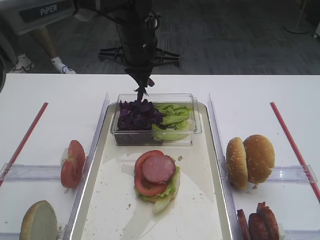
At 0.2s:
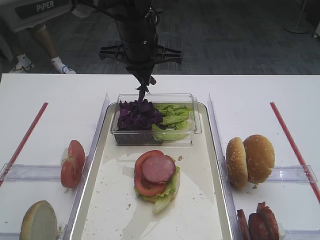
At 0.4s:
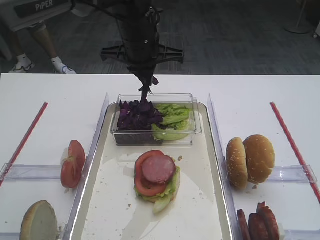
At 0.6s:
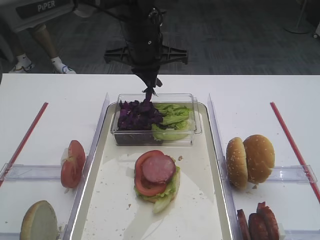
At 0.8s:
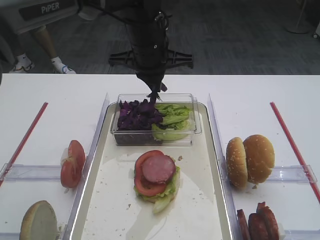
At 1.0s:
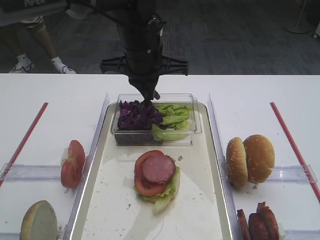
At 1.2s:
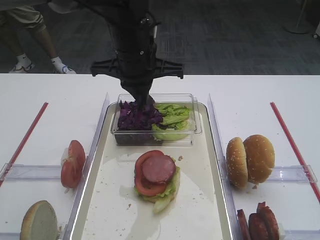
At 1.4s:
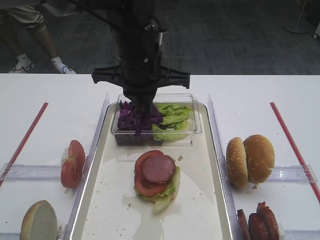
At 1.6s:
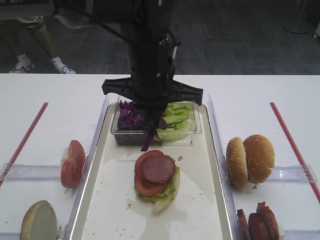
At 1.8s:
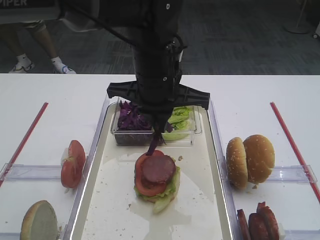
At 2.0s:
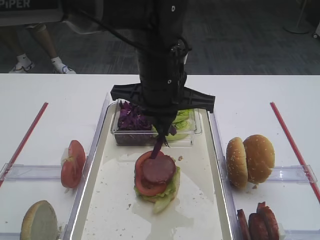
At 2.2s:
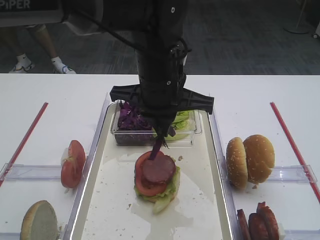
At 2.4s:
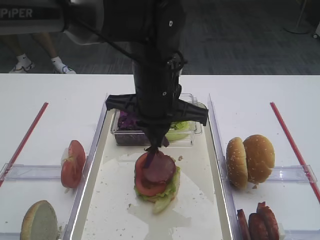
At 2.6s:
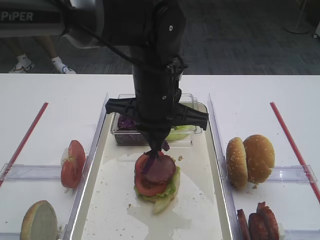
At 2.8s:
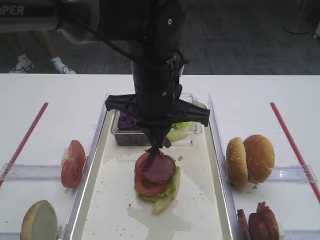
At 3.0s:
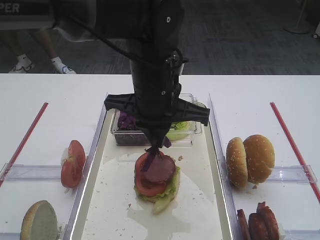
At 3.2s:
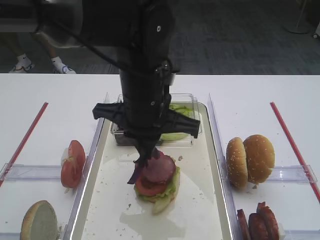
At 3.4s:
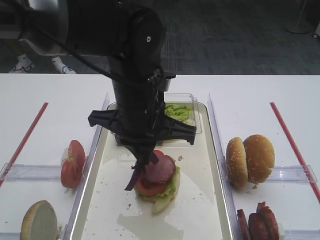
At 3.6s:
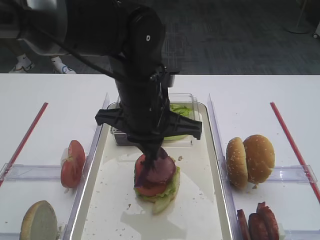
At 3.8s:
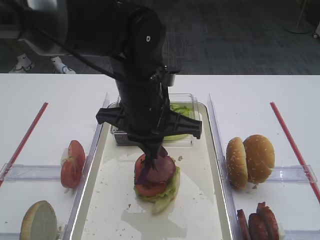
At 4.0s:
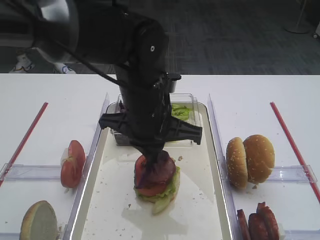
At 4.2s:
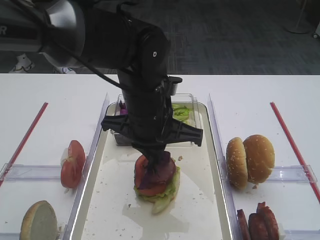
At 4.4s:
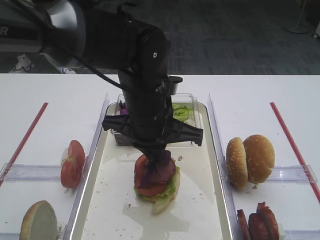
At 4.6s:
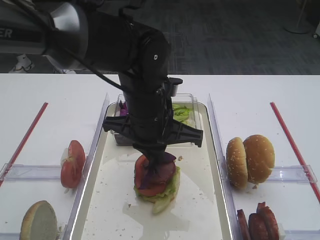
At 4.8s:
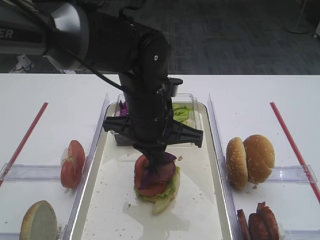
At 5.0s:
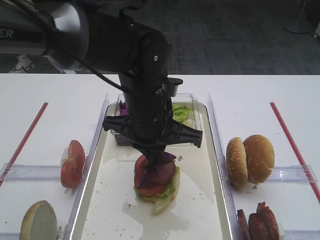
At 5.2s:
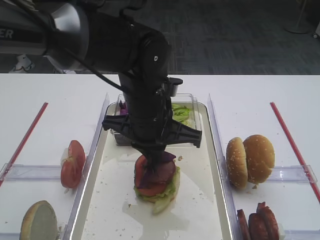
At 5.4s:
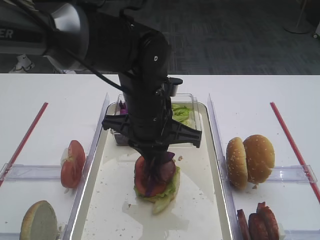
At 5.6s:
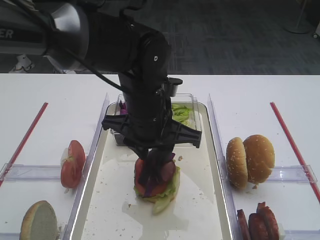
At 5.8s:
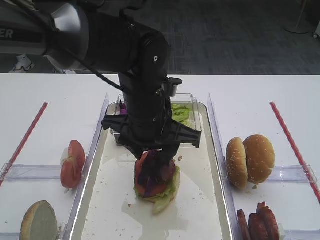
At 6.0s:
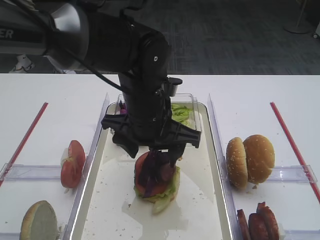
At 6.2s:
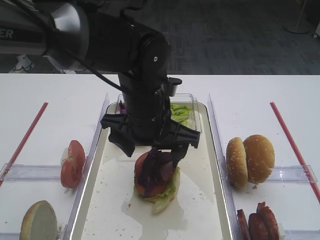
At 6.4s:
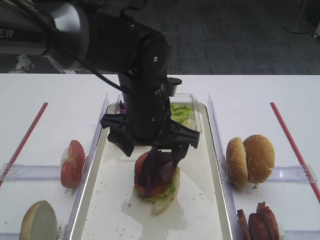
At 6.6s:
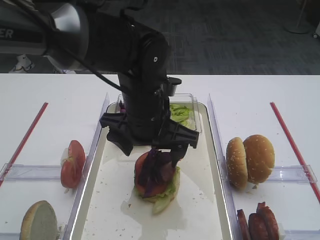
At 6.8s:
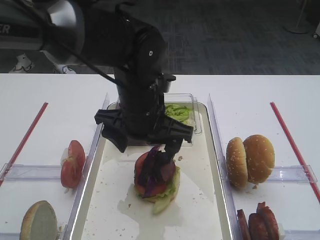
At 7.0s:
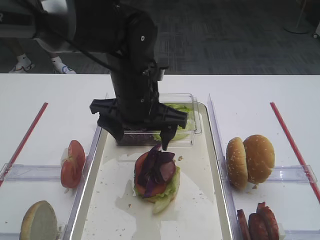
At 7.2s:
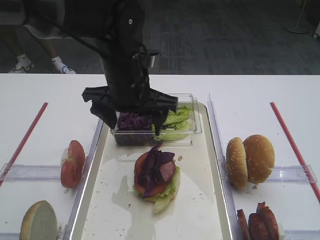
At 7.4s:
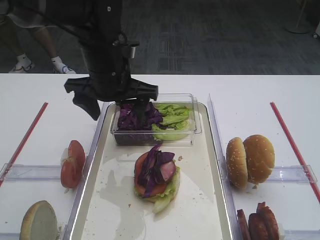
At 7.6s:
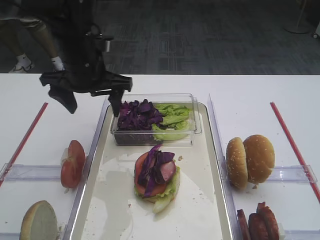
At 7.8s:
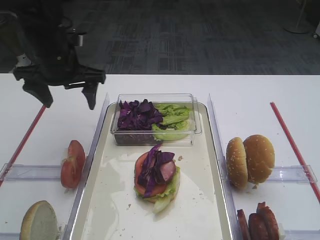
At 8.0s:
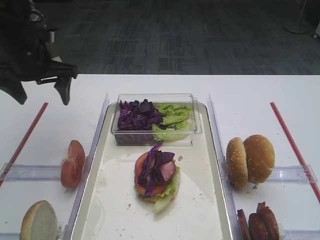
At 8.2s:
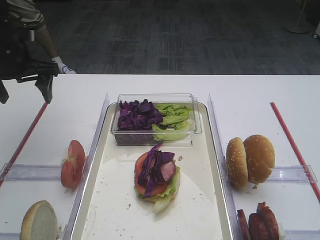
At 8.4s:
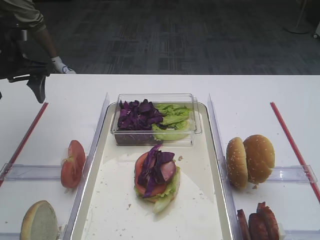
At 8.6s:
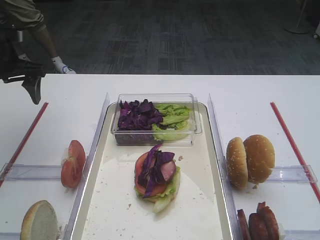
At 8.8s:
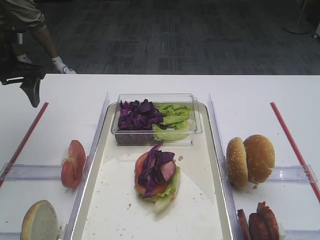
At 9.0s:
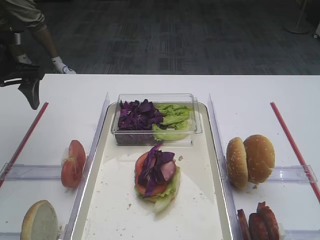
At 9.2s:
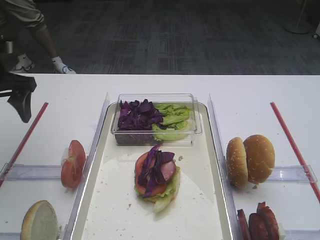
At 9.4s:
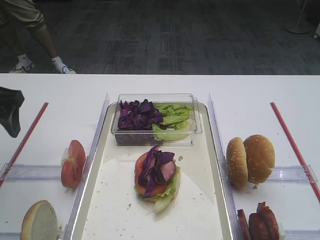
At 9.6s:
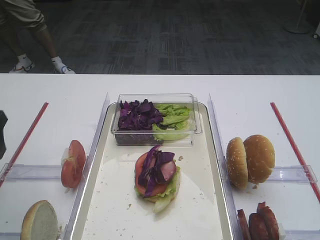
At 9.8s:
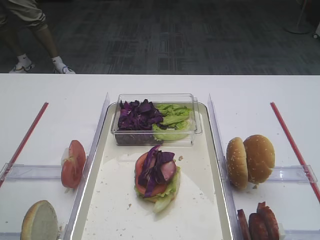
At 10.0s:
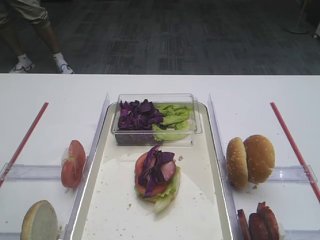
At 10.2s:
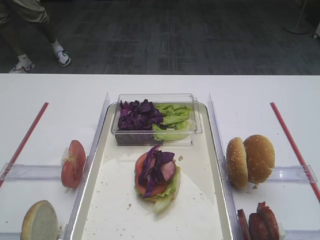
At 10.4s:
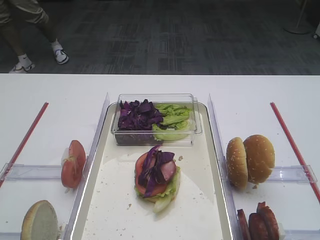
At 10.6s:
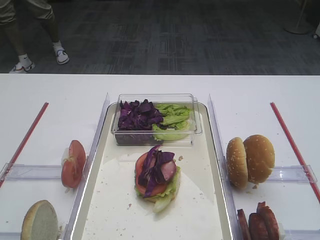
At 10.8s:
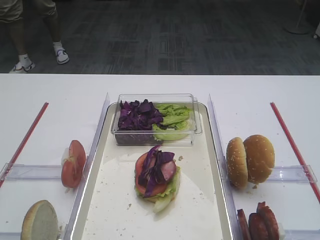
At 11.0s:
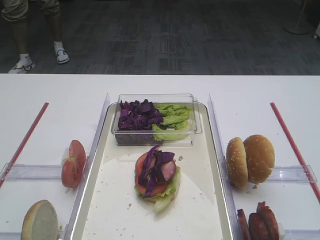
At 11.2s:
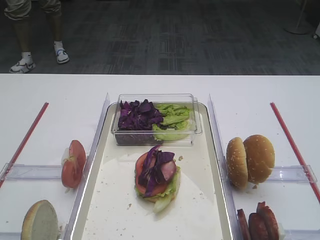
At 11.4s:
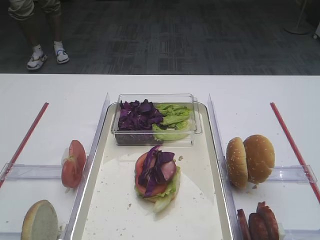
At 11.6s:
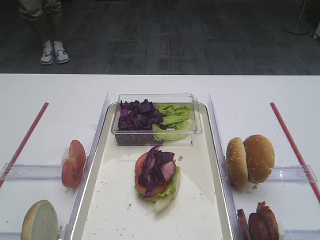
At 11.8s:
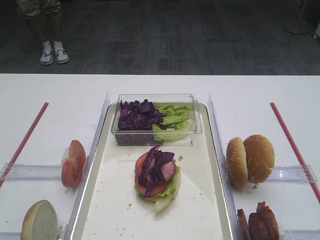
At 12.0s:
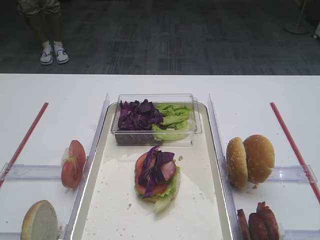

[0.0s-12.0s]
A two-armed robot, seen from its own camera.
Step, 0.2s to 6.6s: Place the purple cabbage on the cutlet with the left gripper.
0.0s to 1.6s: The left gripper shifts roughly 10 cm backward.
1.6s to 4.4s: The grippers stay close to where they were, moving slightly.
4.4s to 6.0s: The left gripper opens.
6.0s to 7.6s: The left gripper travels to the left and forward by approximately 15 cm.
7.6s to 9.0s: The left gripper travels to the left by about 15 cm.
9.0s to 10.4s: The left gripper is displaced backward by approximately 30 cm.
10.4s to 12.0s: The left gripper travels backward by about 10 cm.

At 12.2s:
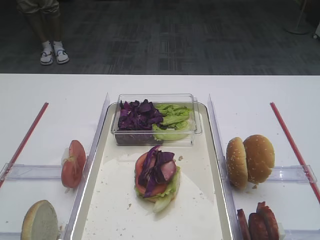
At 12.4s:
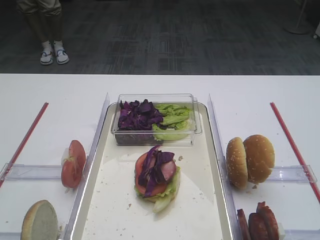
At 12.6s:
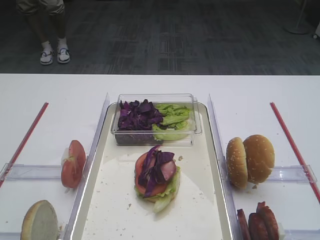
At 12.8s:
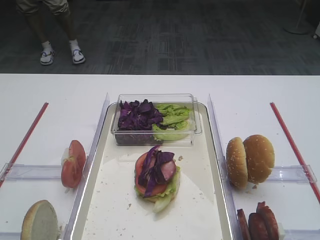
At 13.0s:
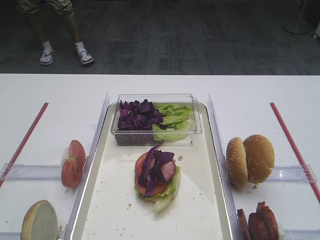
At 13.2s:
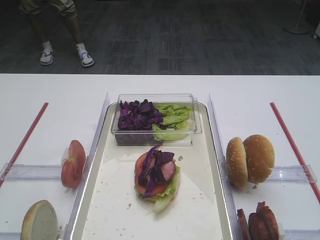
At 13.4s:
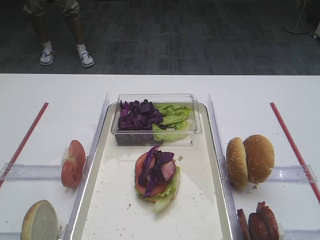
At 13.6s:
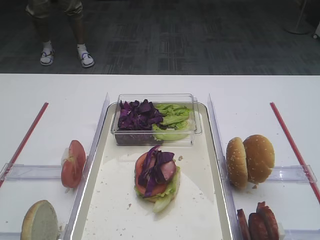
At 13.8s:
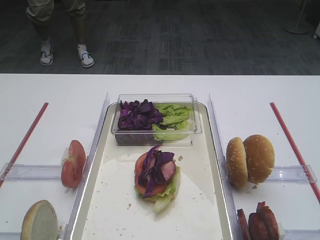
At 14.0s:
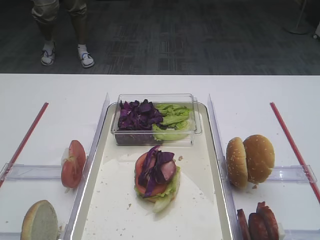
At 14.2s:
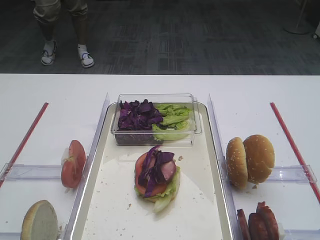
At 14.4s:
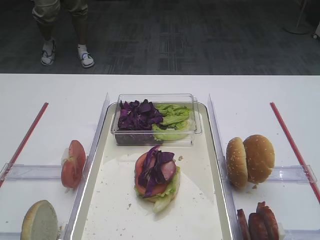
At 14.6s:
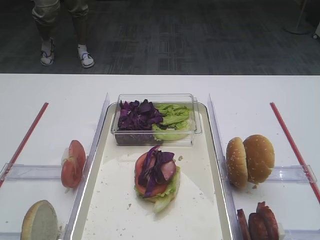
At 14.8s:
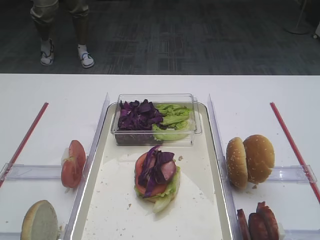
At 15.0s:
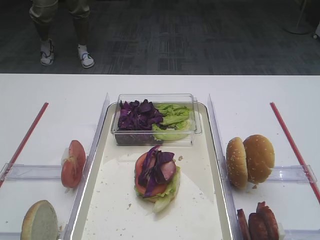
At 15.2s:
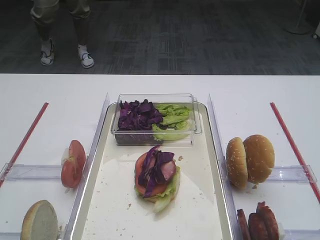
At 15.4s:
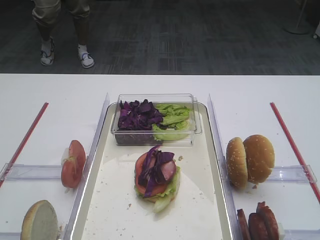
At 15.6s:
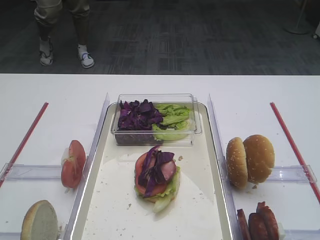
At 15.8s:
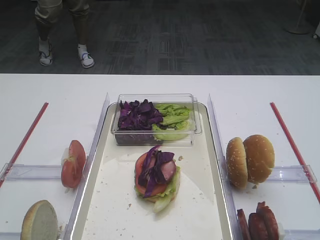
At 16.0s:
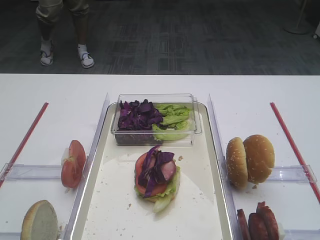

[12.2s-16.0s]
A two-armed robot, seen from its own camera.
12.2s to 16.0s: Neither gripper changes place.

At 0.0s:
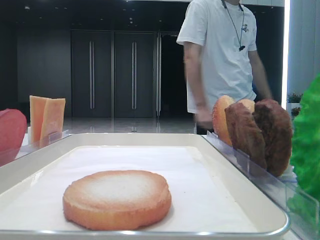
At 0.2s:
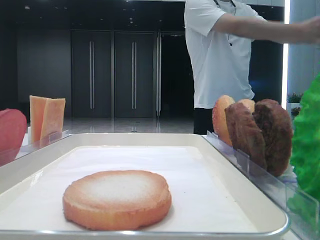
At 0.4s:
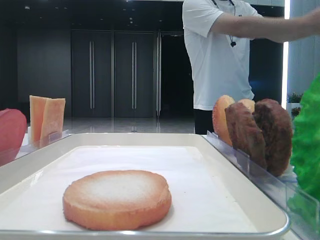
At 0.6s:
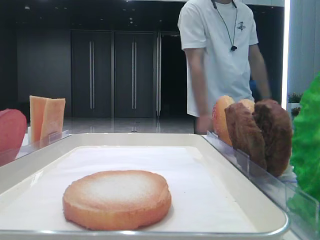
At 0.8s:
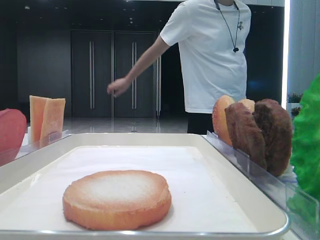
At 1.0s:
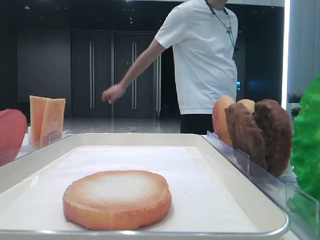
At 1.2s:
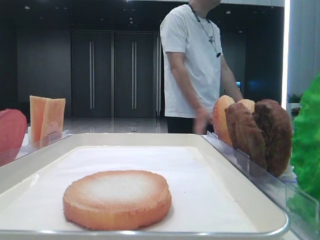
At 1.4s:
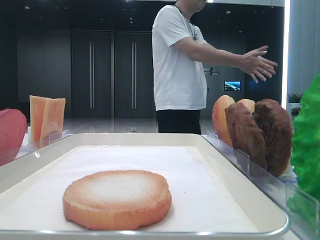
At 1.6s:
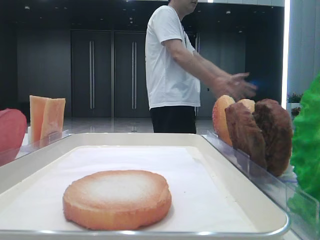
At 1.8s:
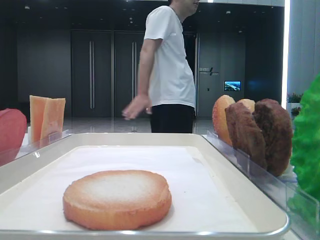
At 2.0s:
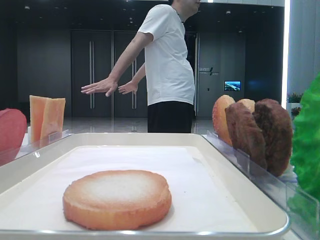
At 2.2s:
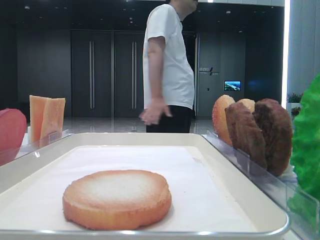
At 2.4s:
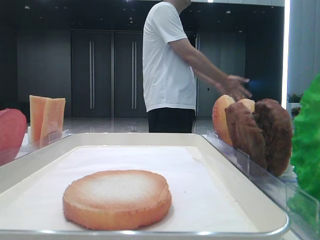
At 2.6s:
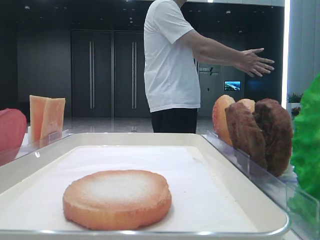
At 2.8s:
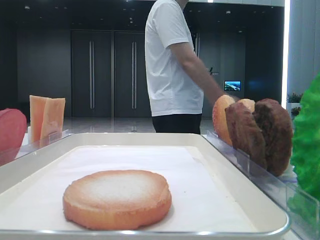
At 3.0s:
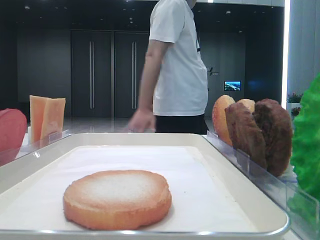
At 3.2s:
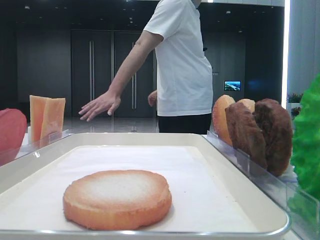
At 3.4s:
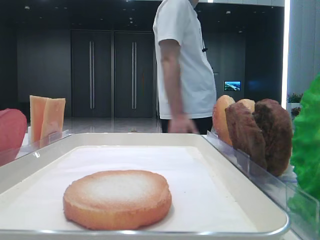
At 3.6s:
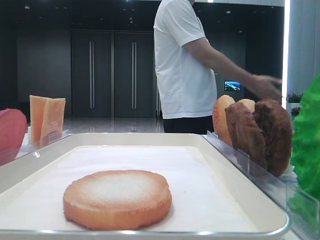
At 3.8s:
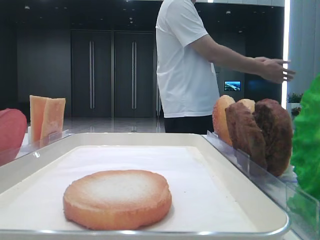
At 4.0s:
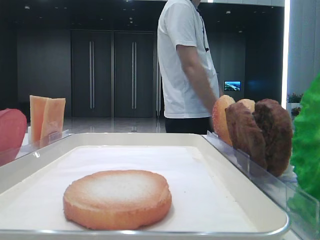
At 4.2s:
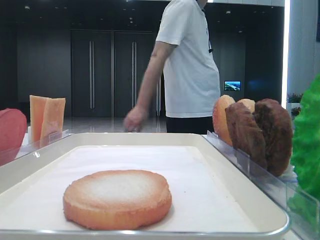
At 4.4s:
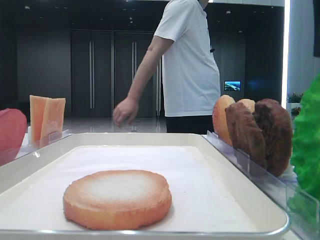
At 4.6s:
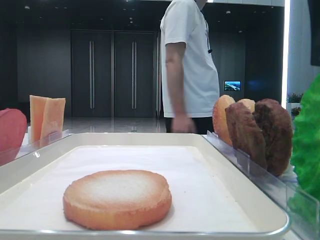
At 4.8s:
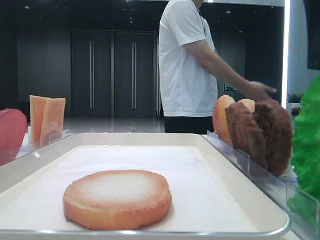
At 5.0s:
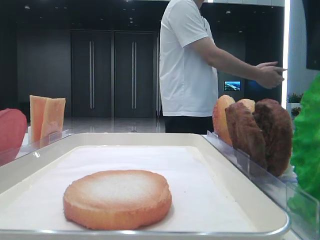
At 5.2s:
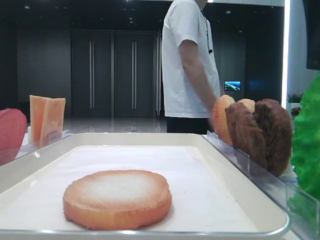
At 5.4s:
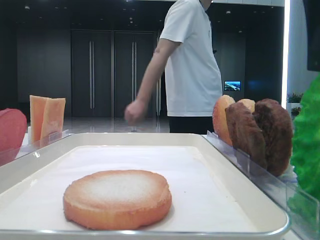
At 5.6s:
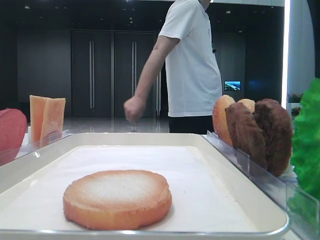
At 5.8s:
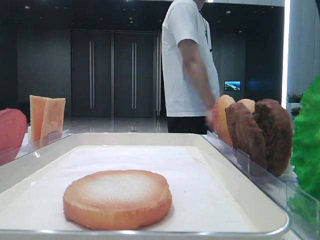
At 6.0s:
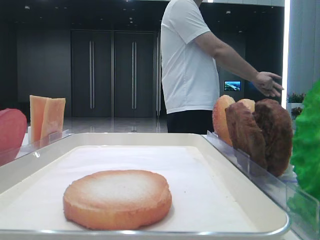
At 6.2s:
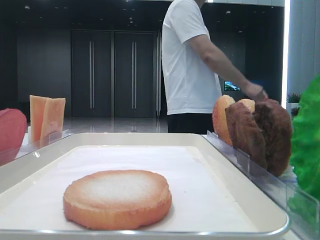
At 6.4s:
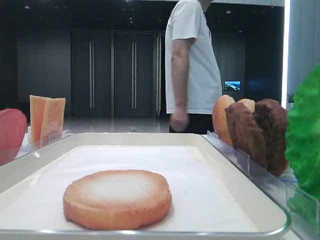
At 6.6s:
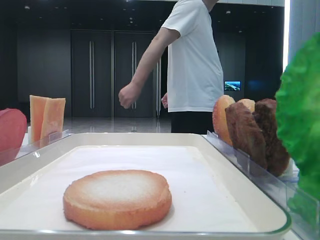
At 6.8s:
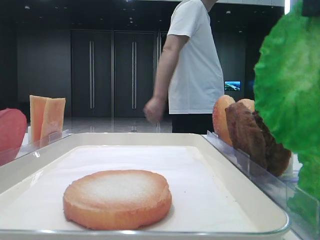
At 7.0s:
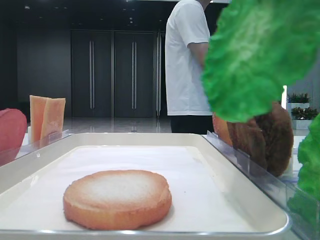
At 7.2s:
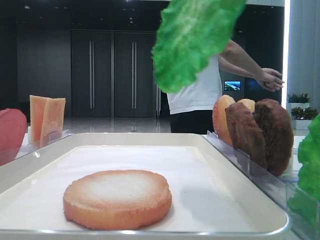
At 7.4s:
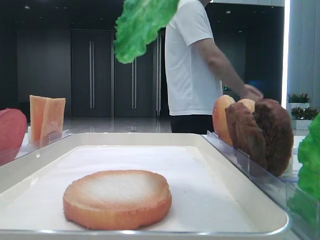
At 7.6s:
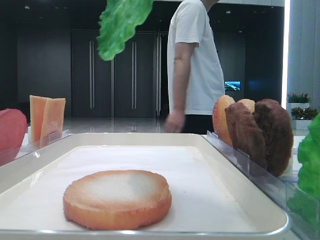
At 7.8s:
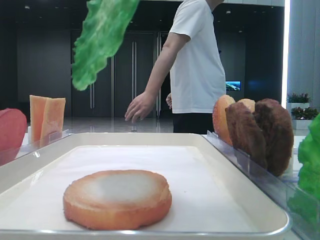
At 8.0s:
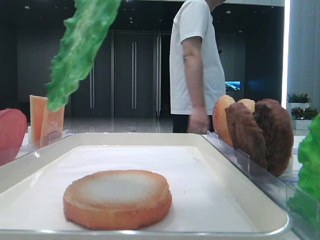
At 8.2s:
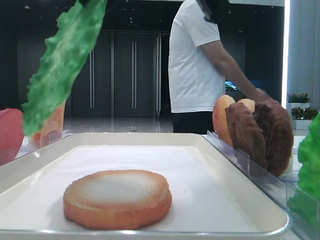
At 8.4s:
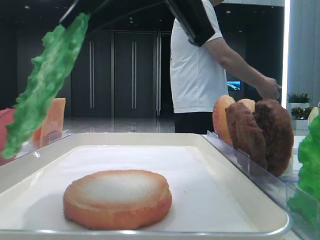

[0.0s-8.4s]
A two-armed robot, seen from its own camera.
Step, 0.0s to 6.0s: Grab the lettuce leaf with the right hand.
1.4s to 2.8s: The right gripper goes roughly 10 cm forward.
2.8s to 4.2s: The right gripper shifts some 10 cm to the left.
4.2s to 5.6s: The grippers move only a little.
5.6s to 7.0s: The right gripper is displaced upward by some 5 cm, and closes.
7.0s to 8.4s: The right gripper shifts about 10 cm to the left and downward.
